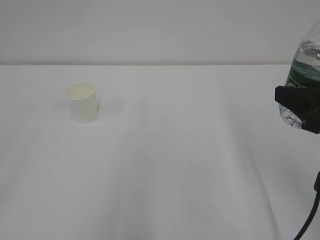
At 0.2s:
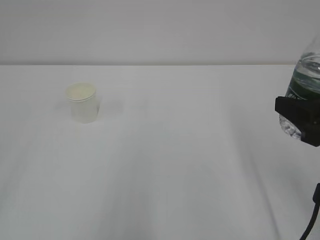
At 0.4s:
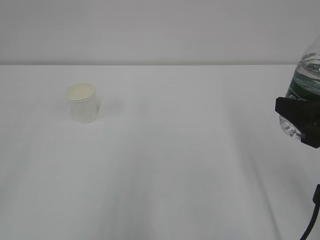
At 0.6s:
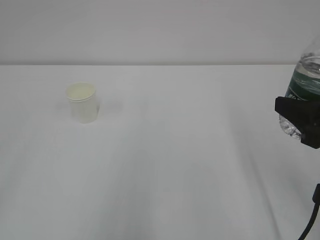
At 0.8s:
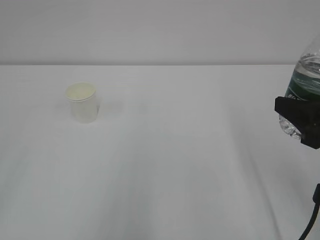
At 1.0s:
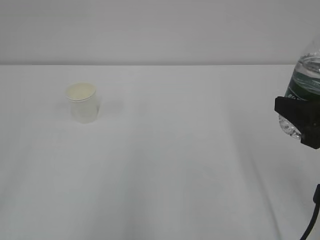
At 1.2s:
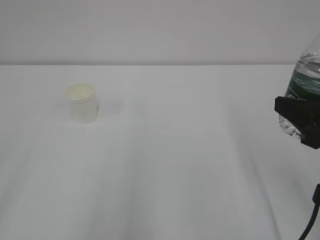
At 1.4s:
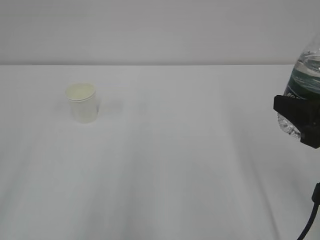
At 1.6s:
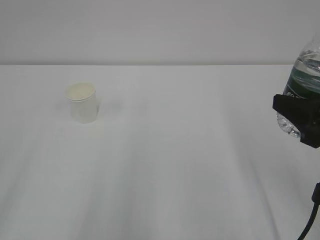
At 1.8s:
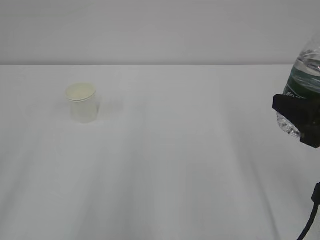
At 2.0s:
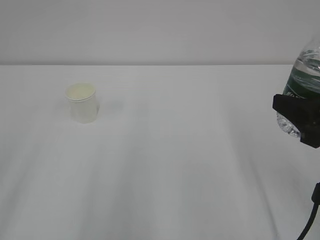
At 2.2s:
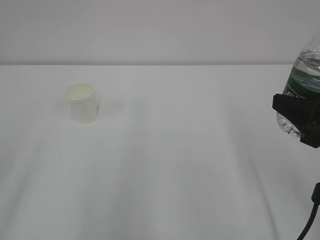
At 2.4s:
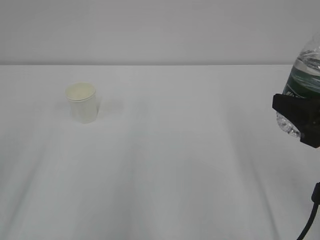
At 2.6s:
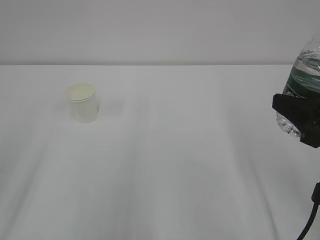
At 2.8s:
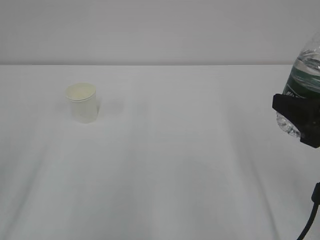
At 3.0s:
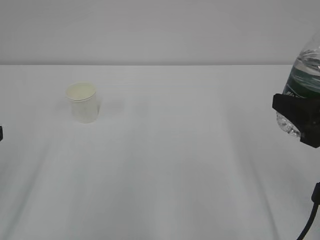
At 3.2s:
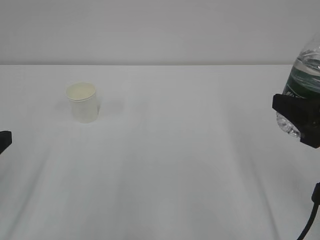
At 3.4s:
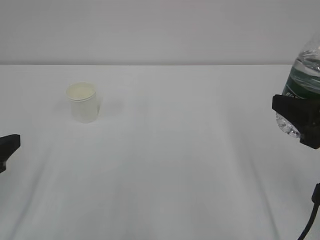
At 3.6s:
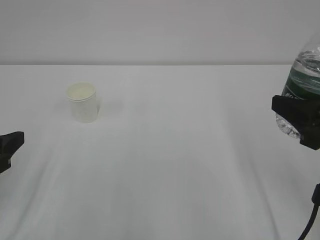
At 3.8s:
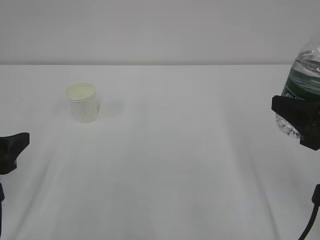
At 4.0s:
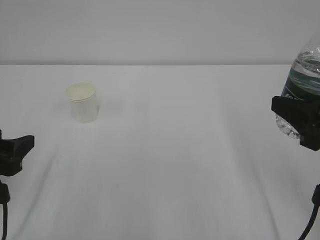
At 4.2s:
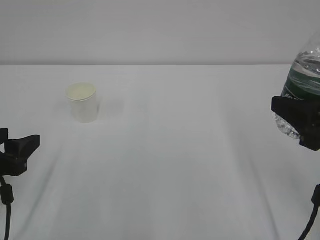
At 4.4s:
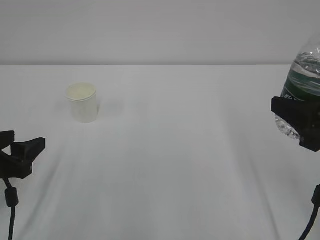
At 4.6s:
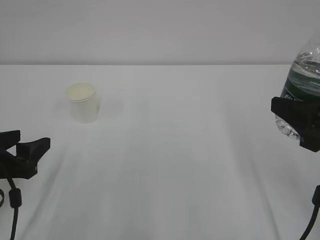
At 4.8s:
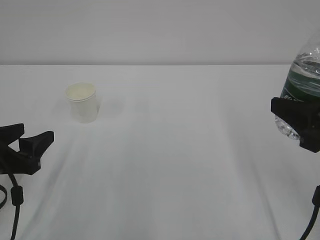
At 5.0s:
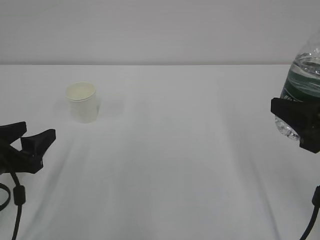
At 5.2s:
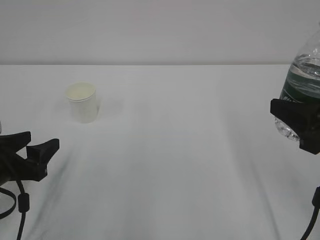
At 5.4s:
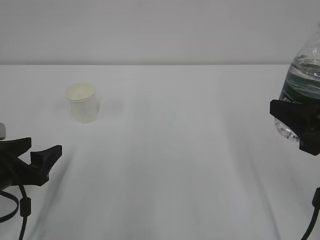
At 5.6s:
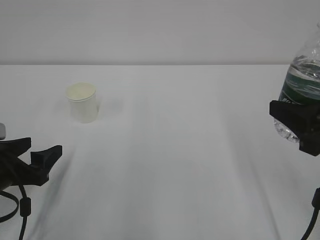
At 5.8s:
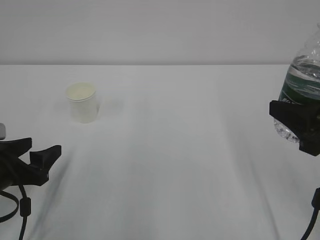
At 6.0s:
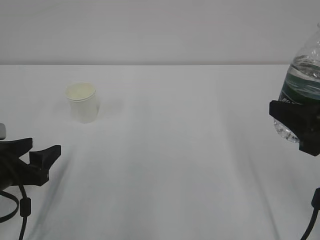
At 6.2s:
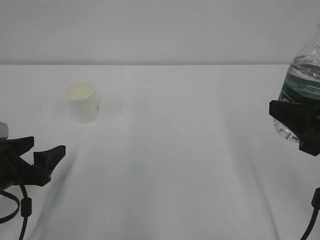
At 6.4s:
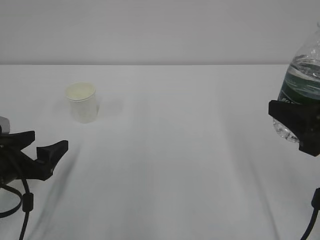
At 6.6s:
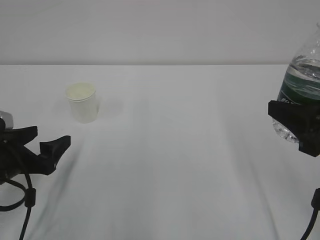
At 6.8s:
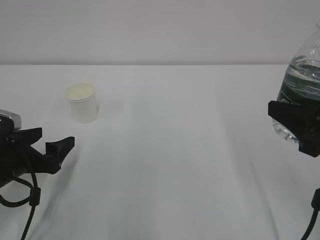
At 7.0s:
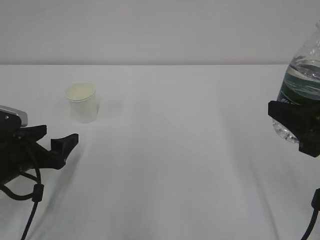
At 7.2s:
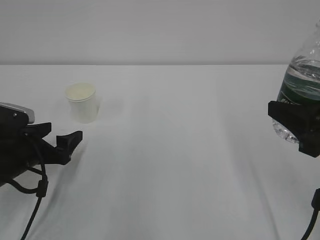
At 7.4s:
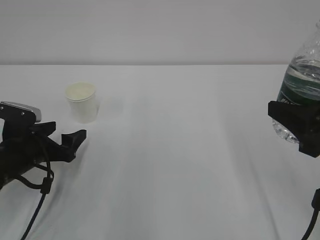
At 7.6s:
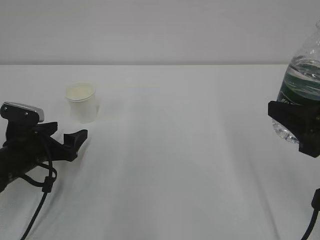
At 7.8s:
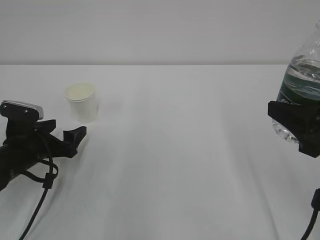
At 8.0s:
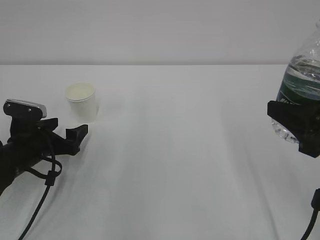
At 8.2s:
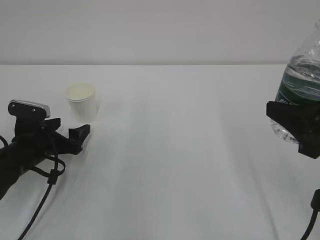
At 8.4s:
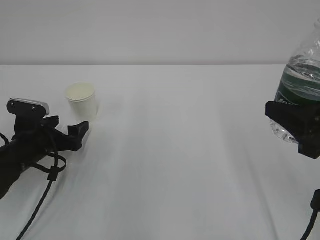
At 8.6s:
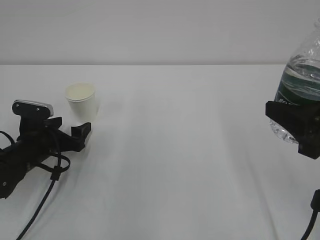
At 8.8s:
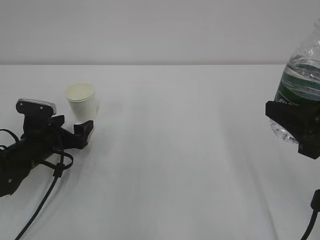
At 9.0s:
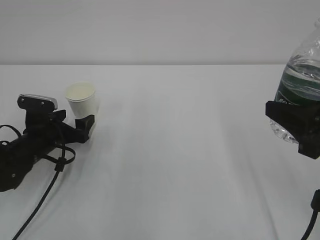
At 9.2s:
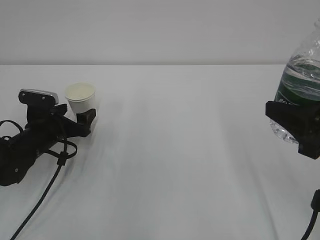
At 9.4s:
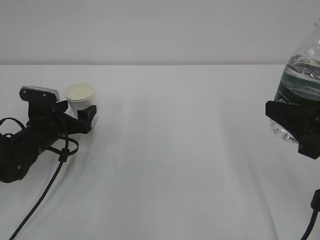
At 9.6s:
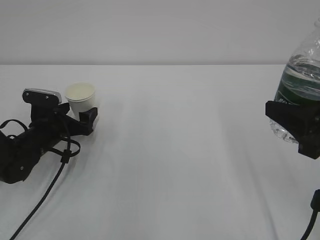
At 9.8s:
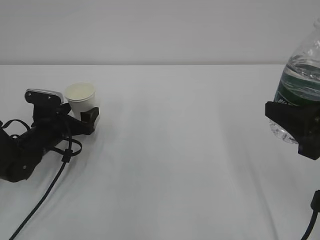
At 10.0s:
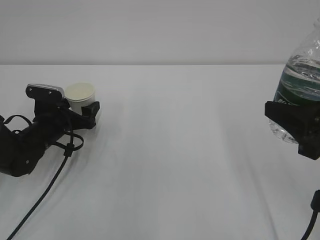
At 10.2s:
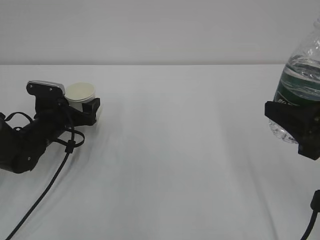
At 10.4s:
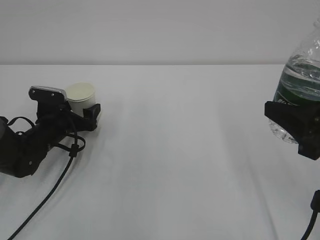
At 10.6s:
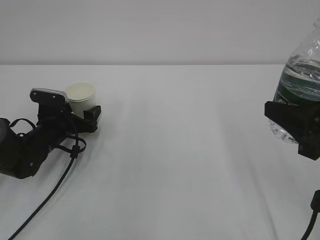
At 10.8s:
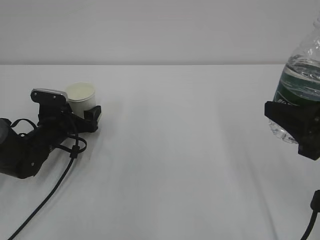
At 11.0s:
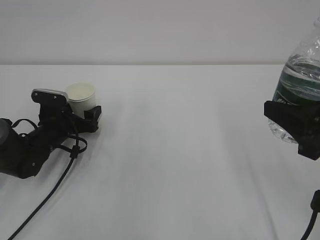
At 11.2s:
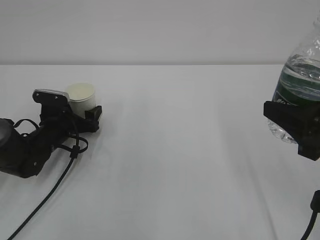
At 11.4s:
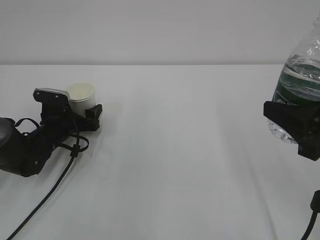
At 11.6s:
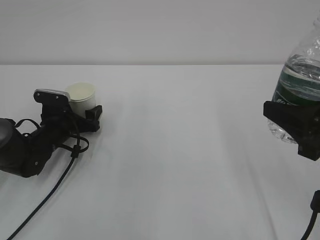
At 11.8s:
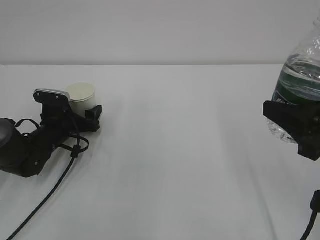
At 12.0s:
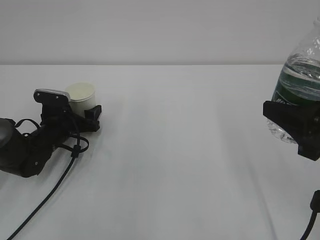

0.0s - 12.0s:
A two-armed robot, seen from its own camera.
3.0s - 4.4s: The left gripper heads downward and forward, covering some 10 cm.
4.4s - 6.0s: The grippers make only small movements.
6.0s - 7.6s: The left gripper is displaced forward by some 5 cm, and opens.
7.6s - 9.0s: The left gripper heads forward, covering roughly 5 cm.
9.0s - 12.0s: The grippers stay close to where they were, moving slightly.

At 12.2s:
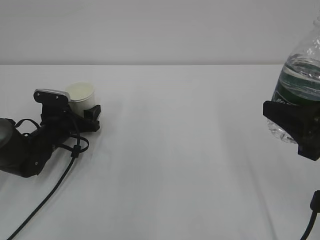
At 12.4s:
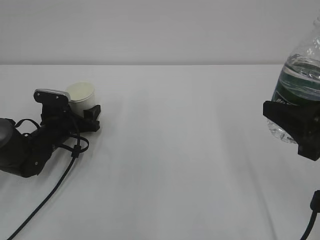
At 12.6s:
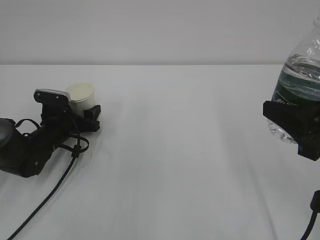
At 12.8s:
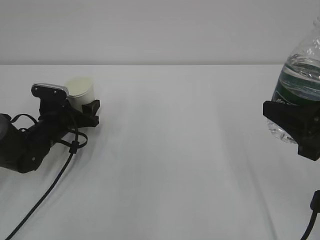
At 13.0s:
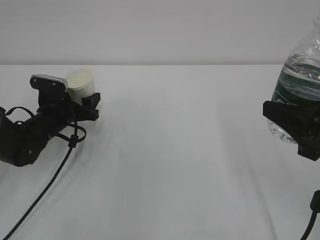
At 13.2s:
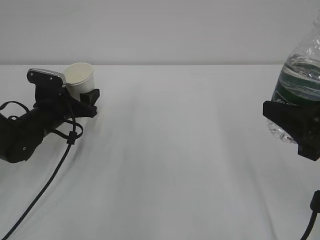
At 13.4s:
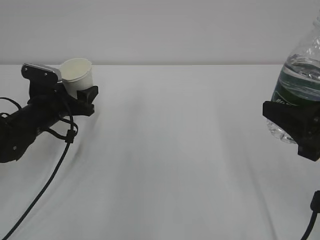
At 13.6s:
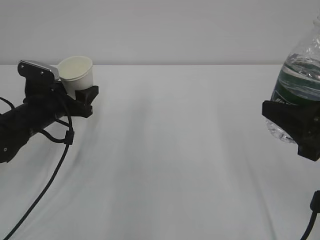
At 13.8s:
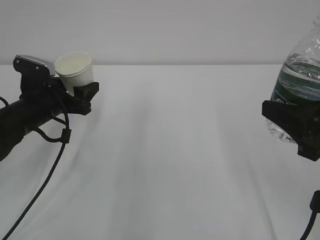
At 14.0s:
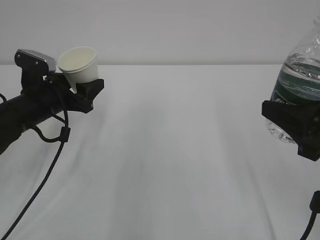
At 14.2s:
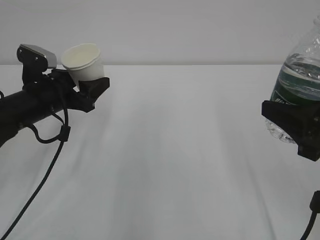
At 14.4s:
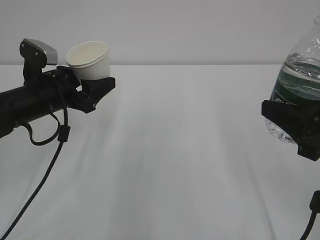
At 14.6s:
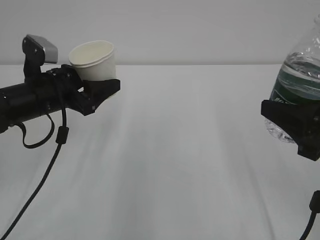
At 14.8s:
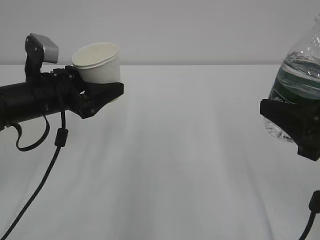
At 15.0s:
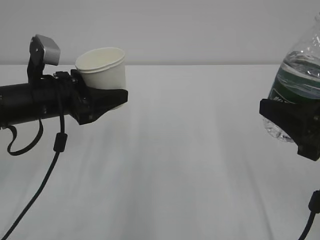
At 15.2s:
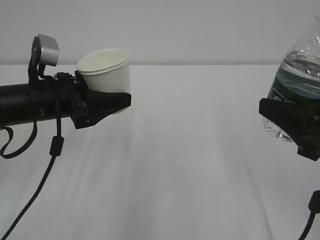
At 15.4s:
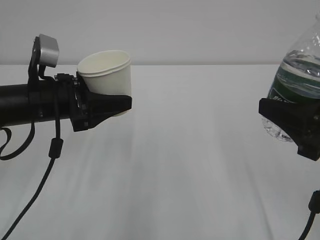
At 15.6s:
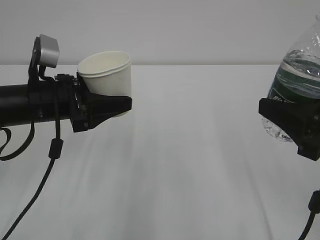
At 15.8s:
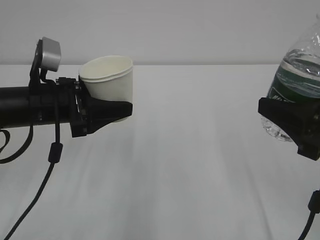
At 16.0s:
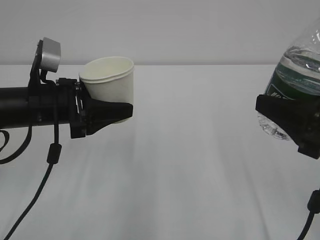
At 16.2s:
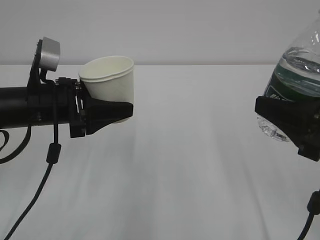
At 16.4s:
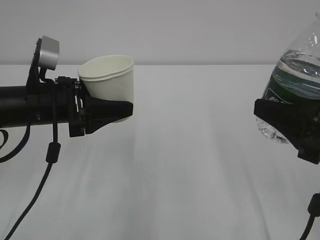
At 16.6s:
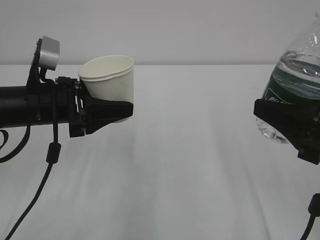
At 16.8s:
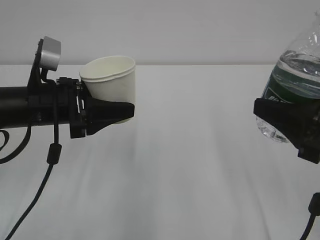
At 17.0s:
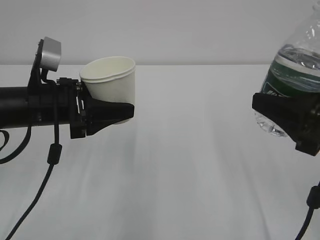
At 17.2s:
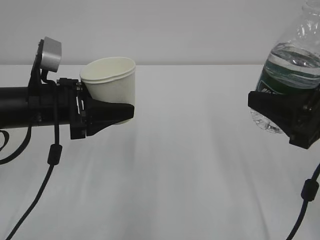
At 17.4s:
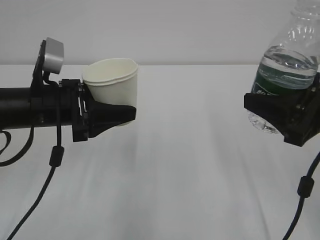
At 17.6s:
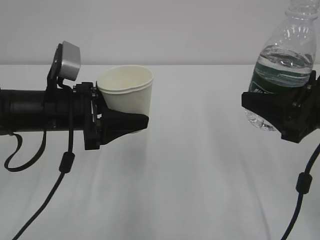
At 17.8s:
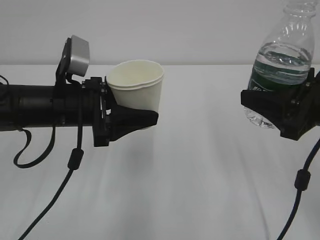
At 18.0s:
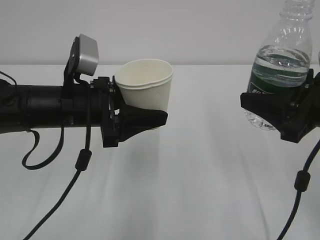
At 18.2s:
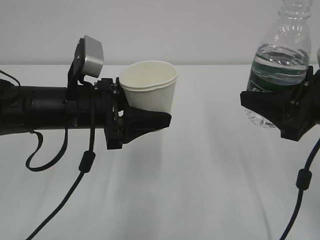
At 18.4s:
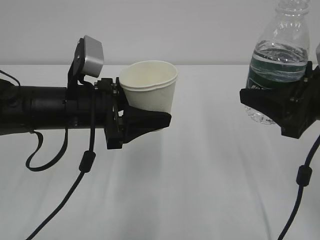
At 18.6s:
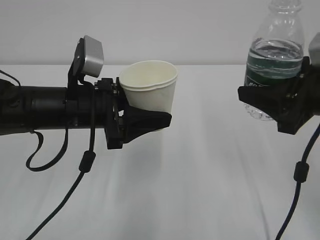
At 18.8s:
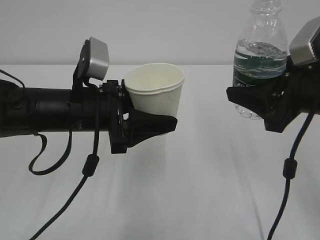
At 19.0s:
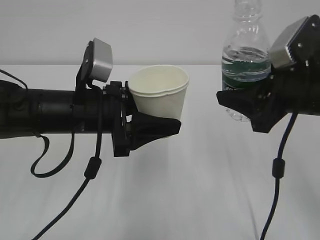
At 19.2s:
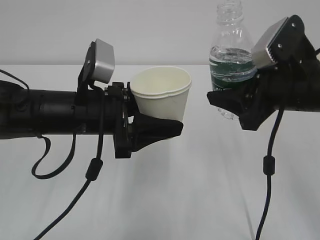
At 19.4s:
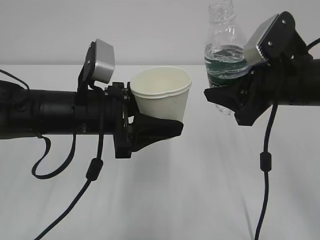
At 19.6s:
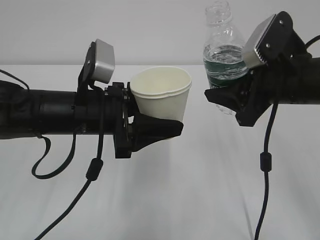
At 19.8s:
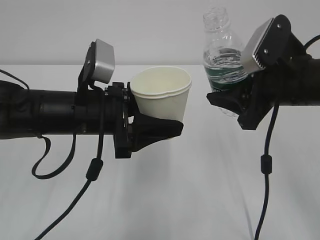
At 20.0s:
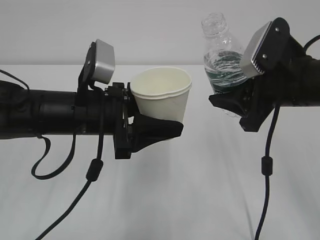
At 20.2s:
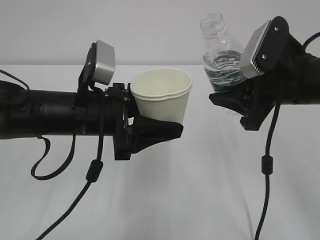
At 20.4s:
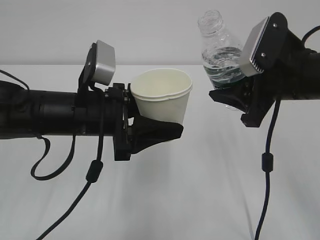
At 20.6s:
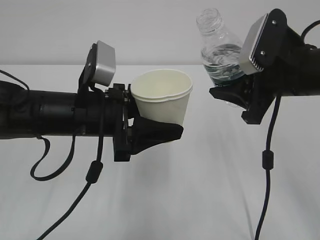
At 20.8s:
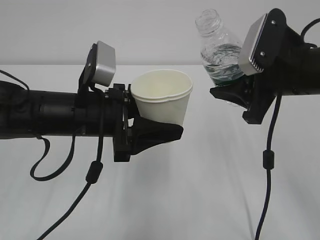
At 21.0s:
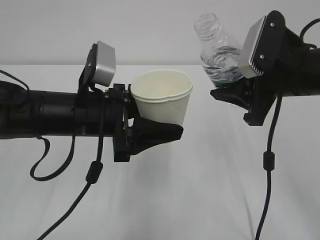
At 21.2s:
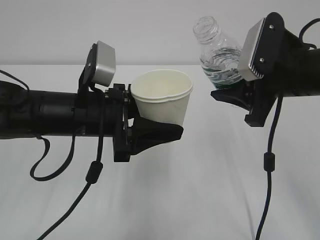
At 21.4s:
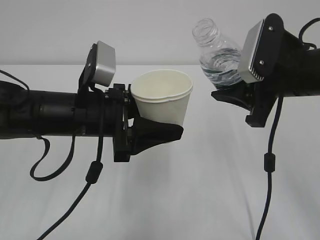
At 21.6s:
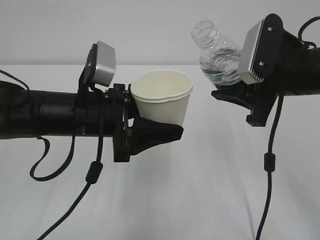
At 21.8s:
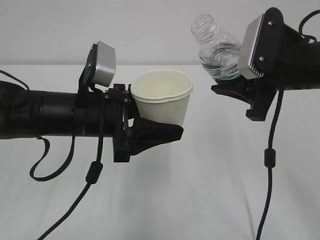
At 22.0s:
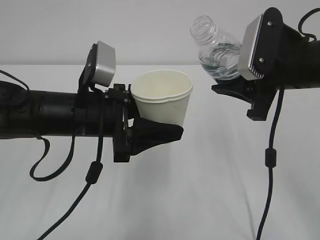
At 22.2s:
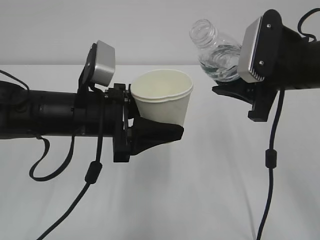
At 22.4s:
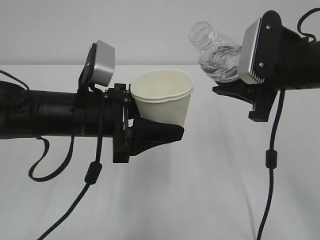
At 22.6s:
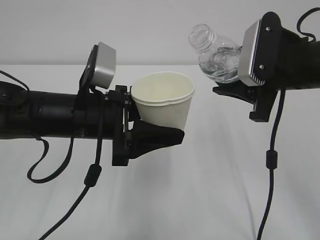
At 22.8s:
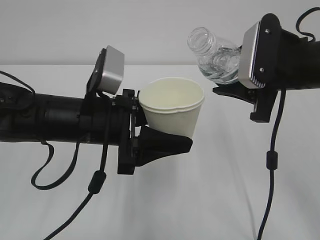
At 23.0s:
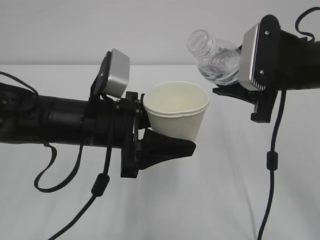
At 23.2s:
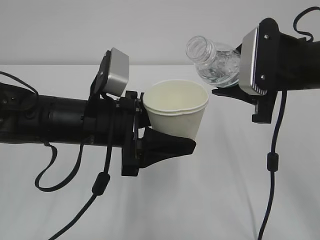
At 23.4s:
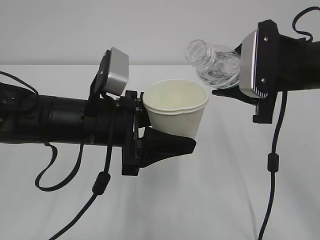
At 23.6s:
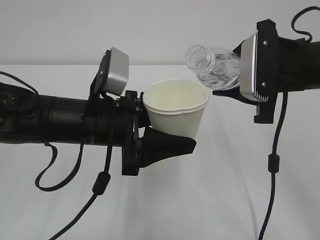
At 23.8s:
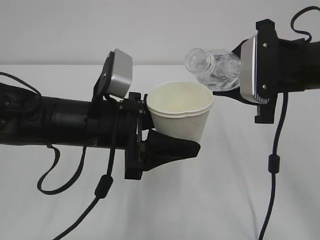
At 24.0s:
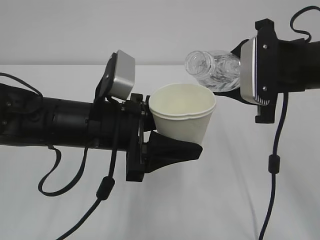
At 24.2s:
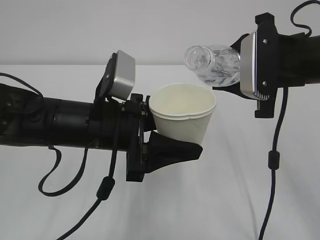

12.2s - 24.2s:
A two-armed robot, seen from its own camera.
12.2s - 13.8s: The left gripper heads upward, covering approximately 10 cm.
13.8s - 15.2s: The left gripper travels upward and backward by some 10 cm.
15.2s - 16.6s: The grippers stay close to where they were, moving slightly.
16.6s - 18.2s: The left gripper travels to the right by roughly 5 cm.
18.2s - 19.8s: The right gripper goes about 5 cm forward.
19.8s - 21.2s: The grippers move only a little.
21.2s - 22.6s: The grippers move only a little.
